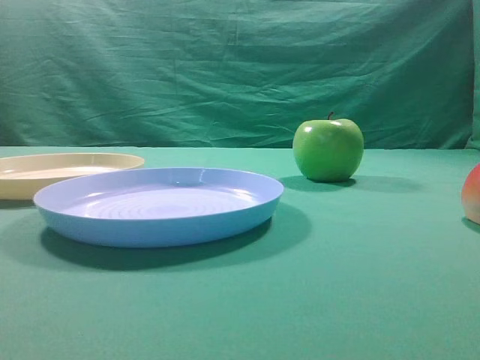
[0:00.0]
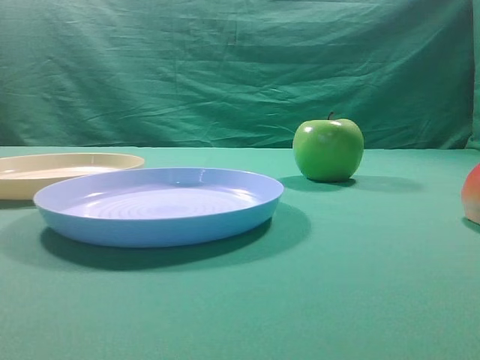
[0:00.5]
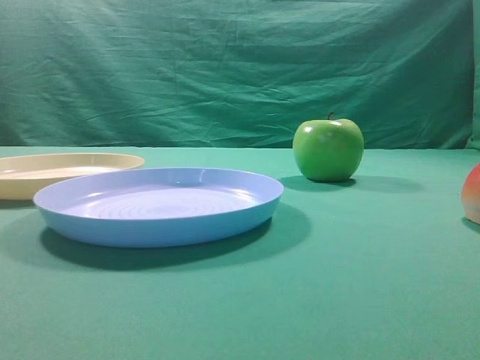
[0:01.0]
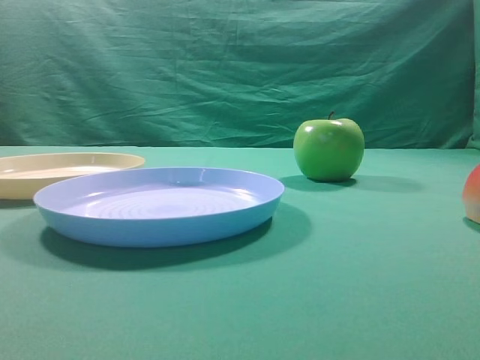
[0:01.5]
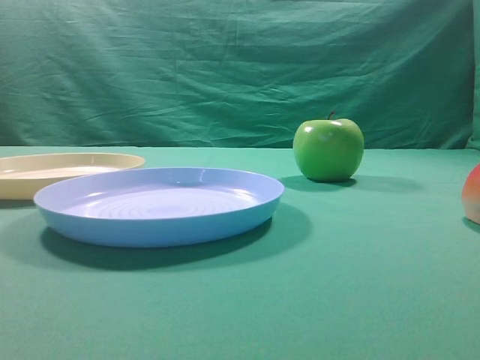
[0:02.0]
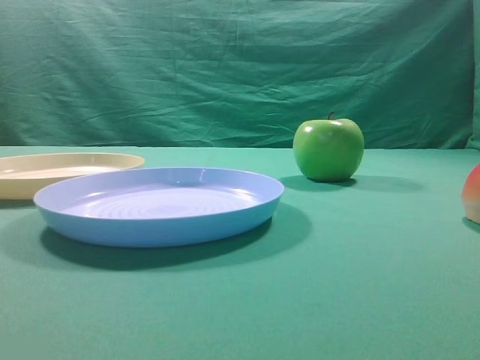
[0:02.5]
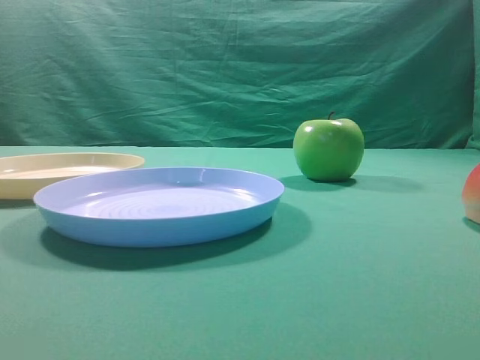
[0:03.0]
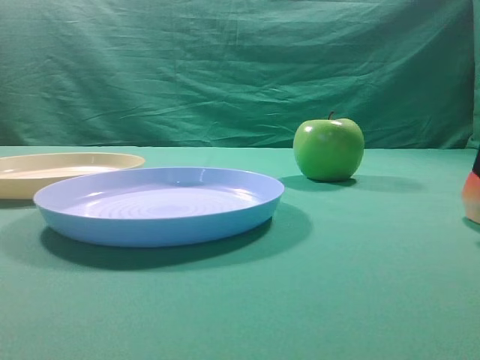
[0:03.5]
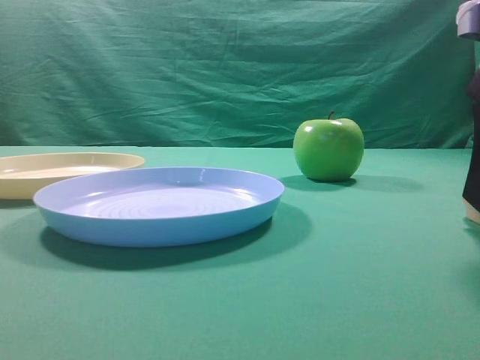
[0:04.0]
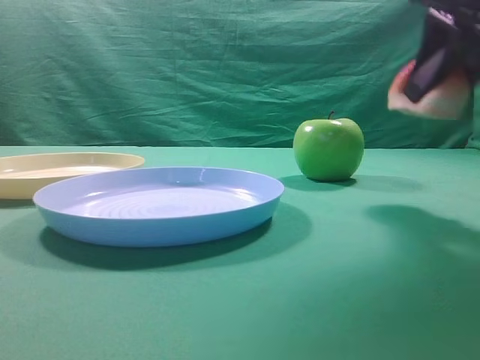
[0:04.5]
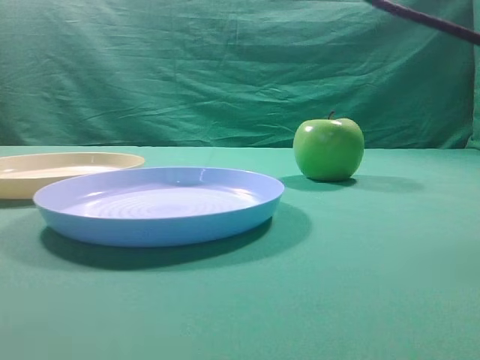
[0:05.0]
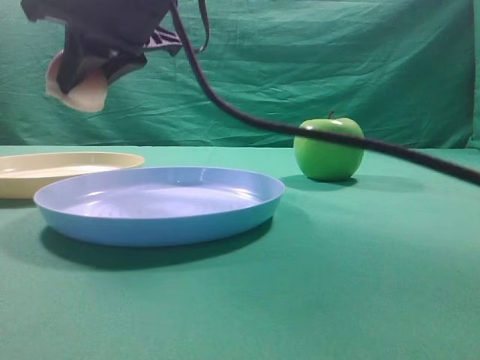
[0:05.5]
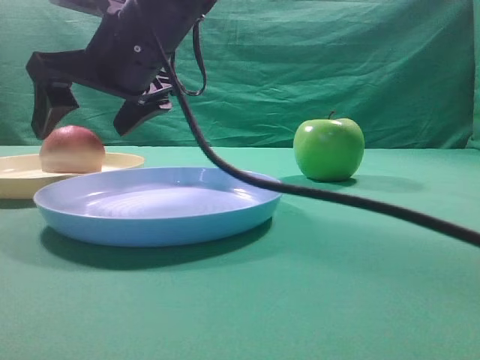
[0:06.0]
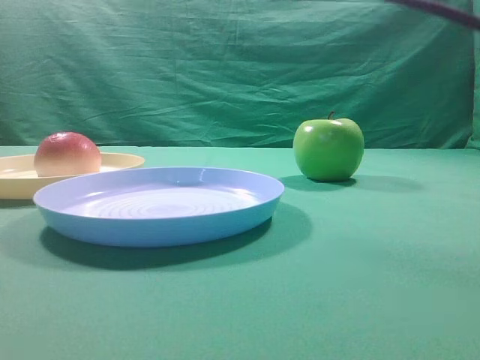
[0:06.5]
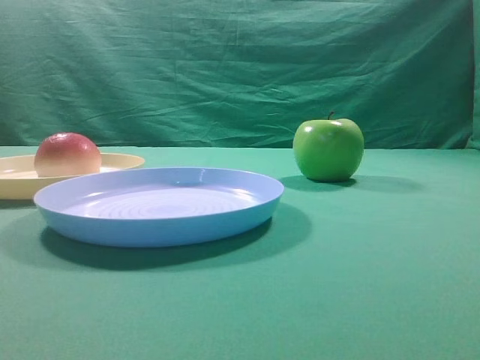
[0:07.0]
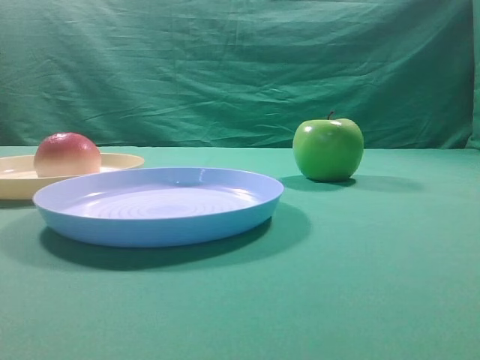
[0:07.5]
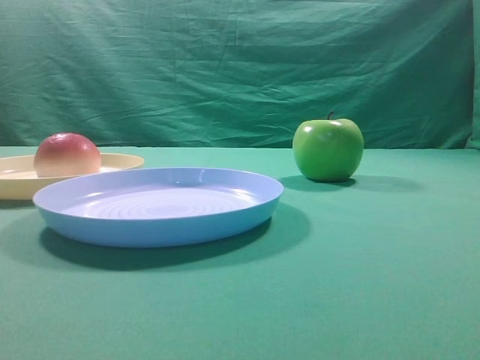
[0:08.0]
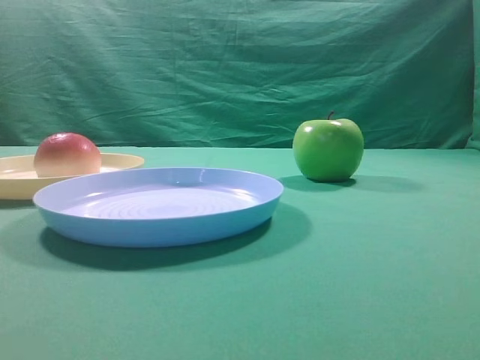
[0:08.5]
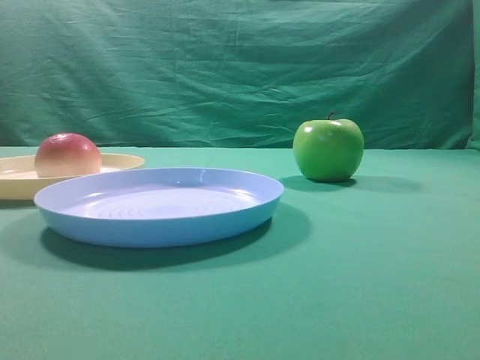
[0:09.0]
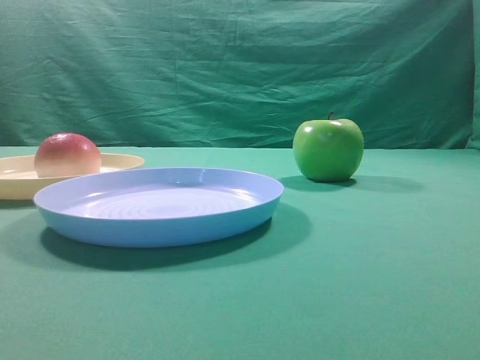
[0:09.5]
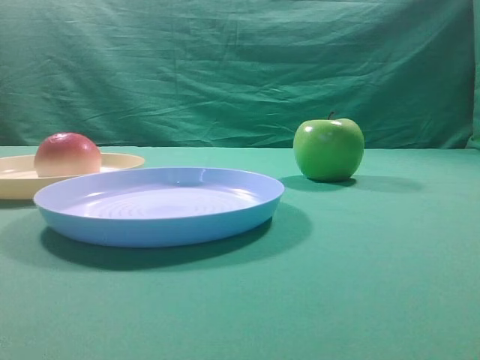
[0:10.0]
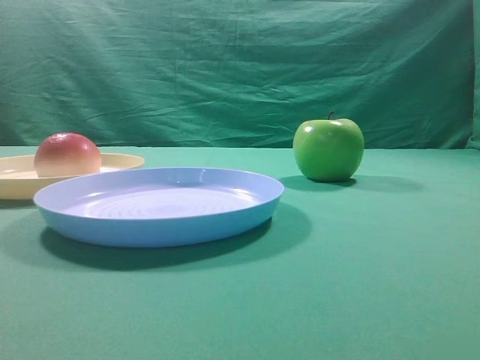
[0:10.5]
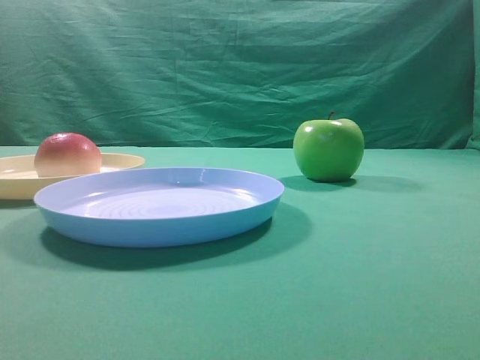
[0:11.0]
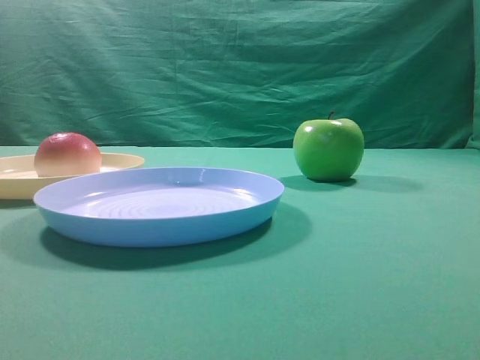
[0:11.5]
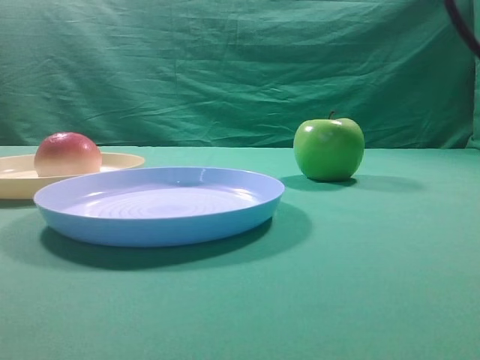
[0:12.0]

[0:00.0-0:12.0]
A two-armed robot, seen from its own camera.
Step, 0:04.5 to 0:06.0: Place the picked object on the yellow plate.

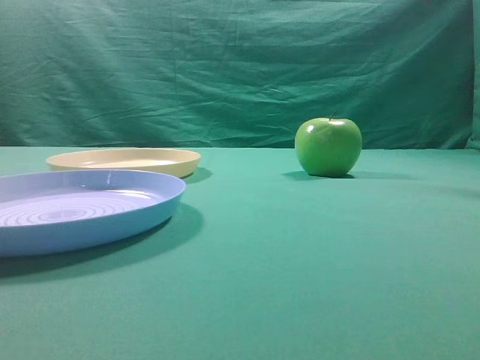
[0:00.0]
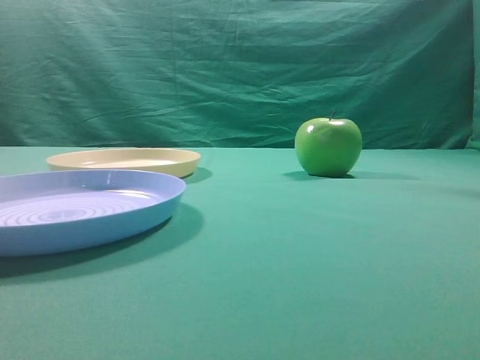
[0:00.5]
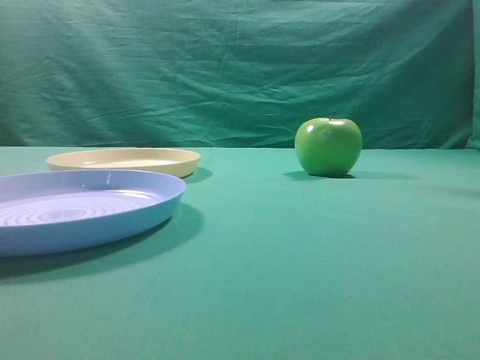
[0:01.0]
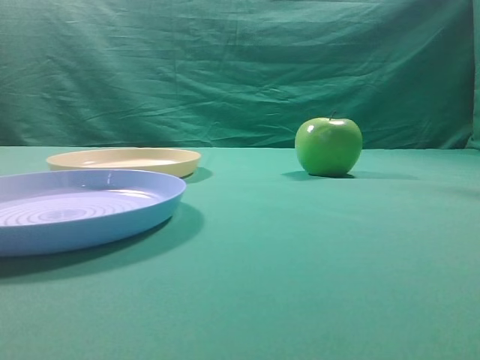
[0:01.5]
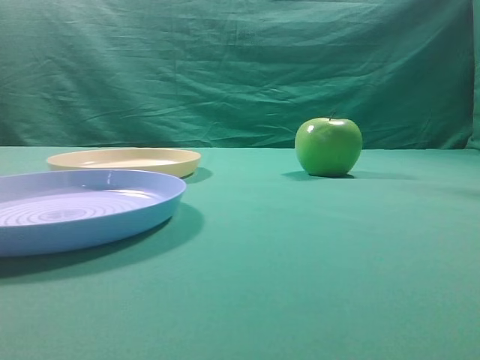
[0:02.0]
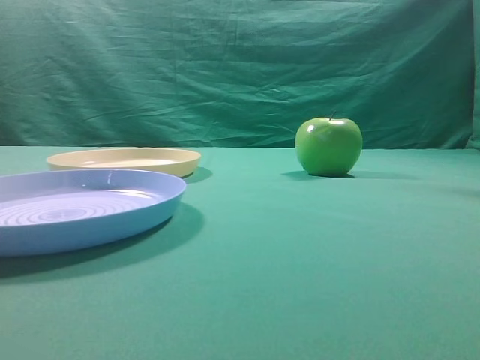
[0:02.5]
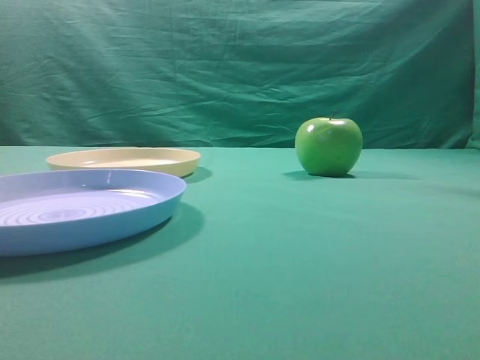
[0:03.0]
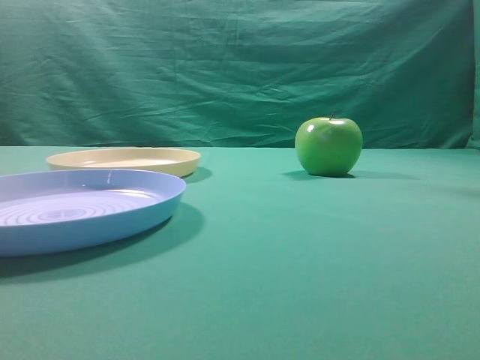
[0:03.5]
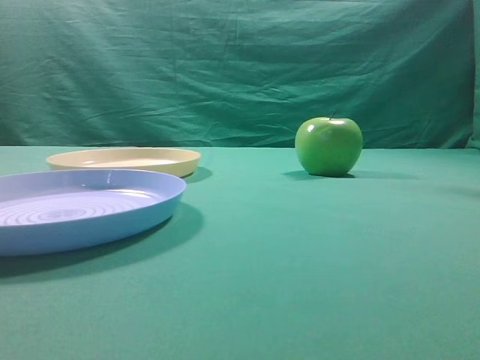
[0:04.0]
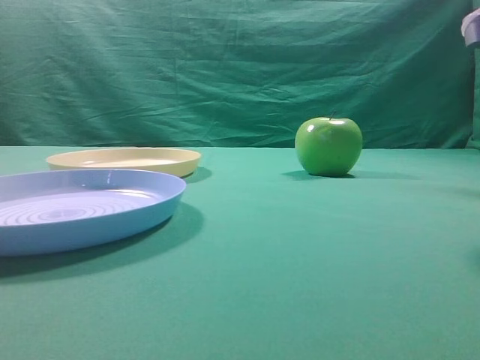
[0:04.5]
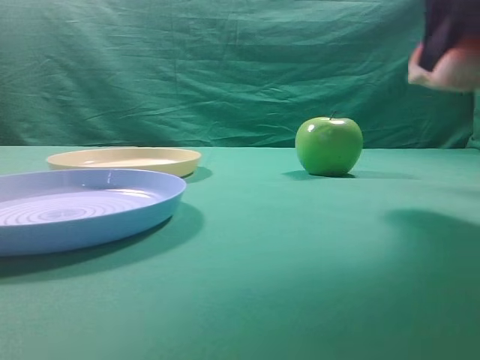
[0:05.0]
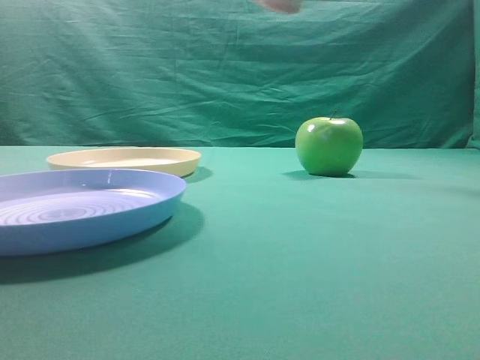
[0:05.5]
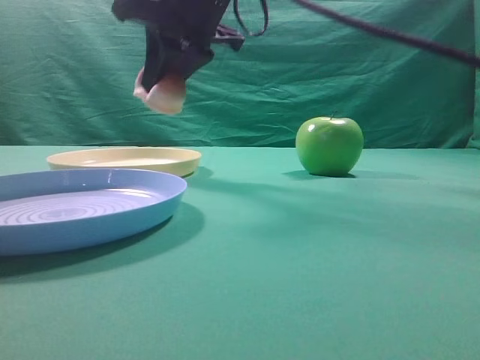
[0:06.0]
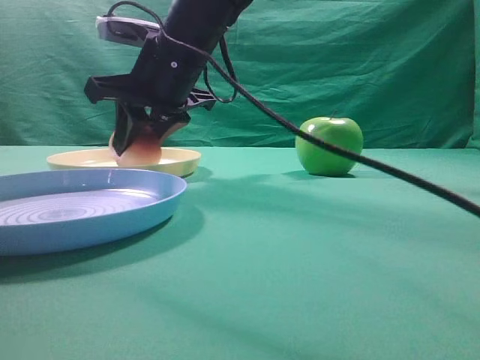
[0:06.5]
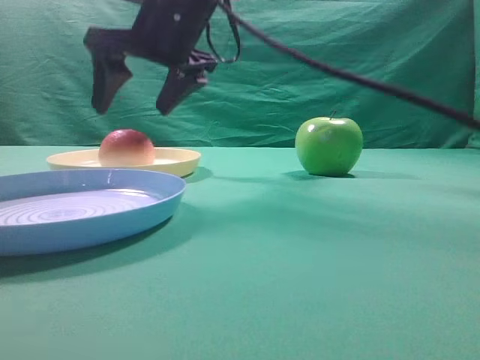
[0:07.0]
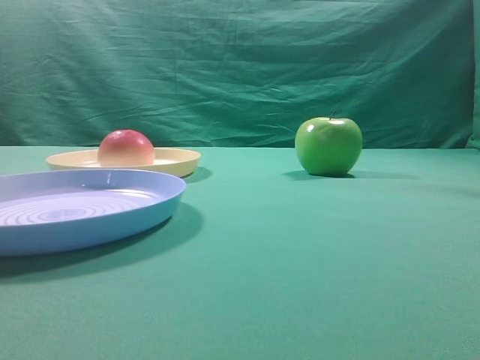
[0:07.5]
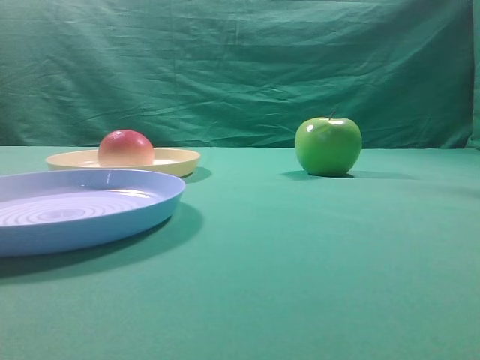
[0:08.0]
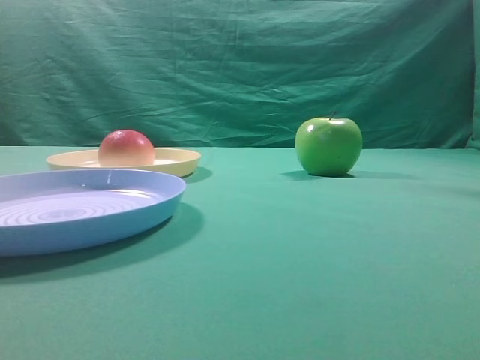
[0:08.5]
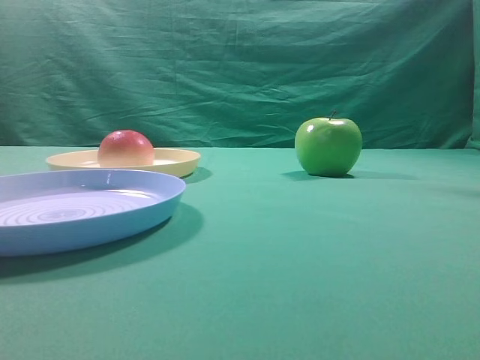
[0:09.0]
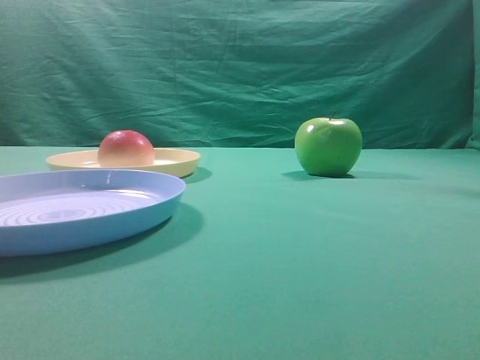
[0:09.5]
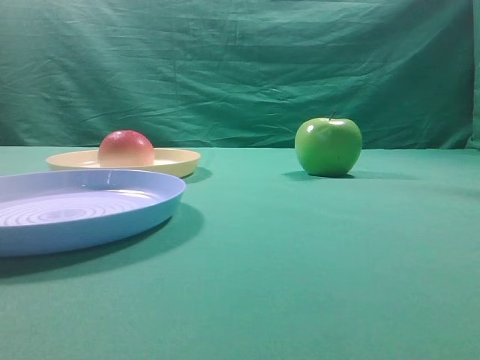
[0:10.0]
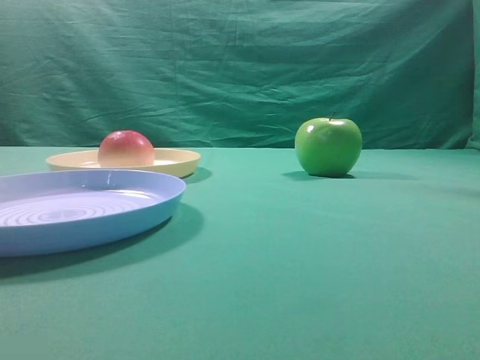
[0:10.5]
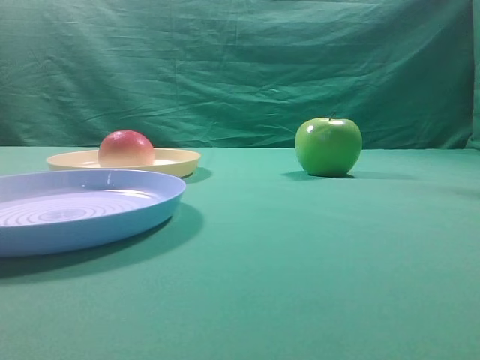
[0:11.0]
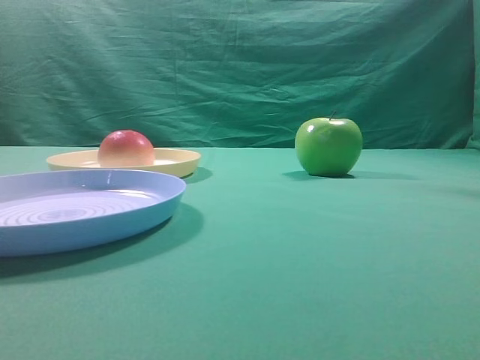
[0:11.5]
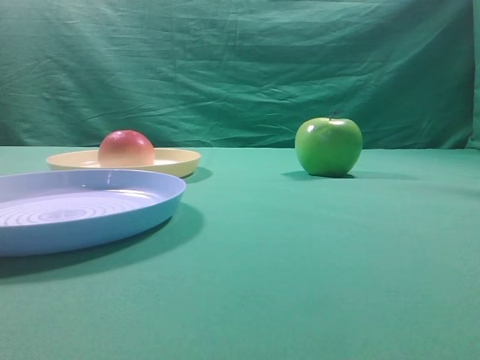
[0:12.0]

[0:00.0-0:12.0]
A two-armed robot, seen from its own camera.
Step, 0:05.0 to 0:06.5: Place the picked object on the yellow plate.
